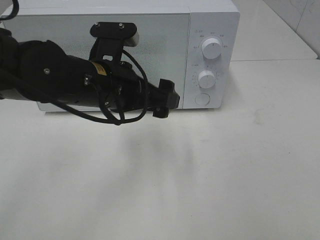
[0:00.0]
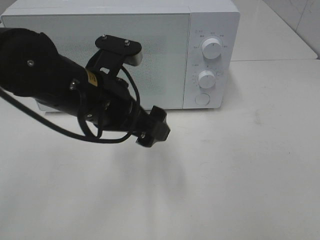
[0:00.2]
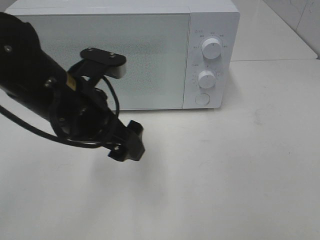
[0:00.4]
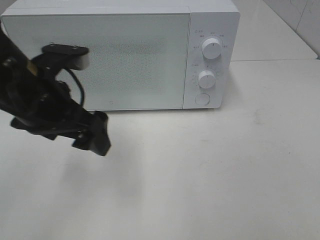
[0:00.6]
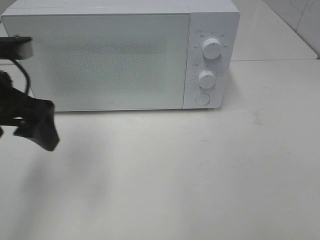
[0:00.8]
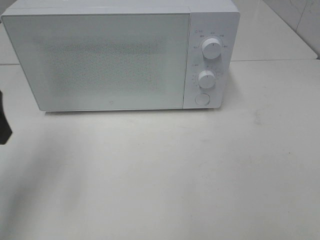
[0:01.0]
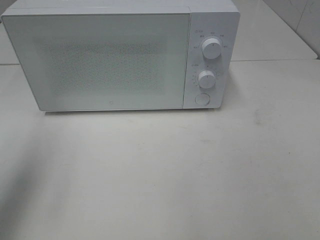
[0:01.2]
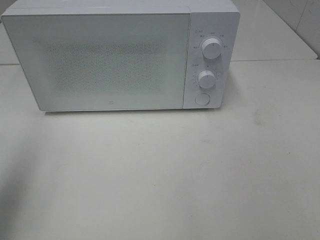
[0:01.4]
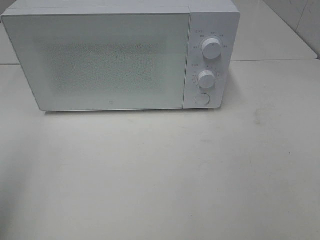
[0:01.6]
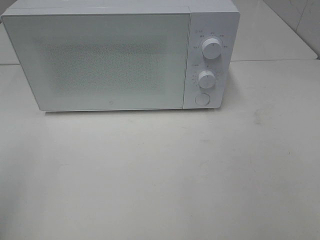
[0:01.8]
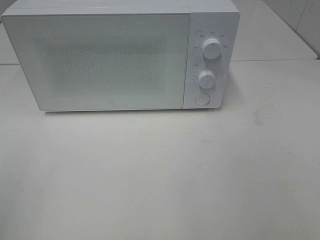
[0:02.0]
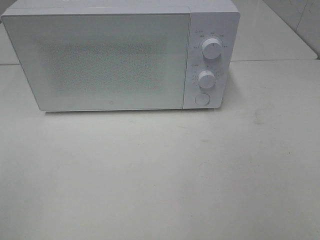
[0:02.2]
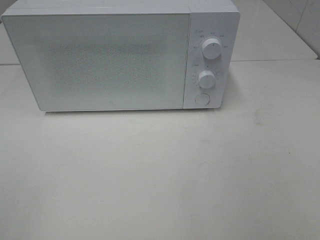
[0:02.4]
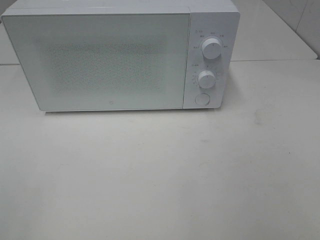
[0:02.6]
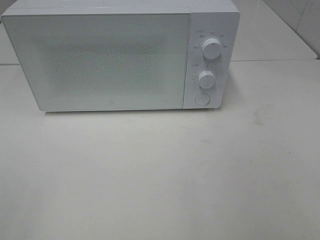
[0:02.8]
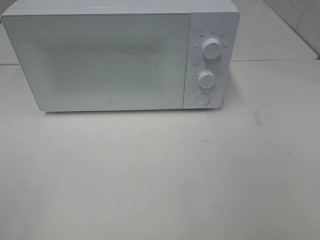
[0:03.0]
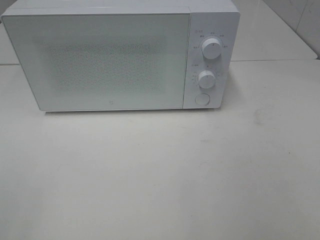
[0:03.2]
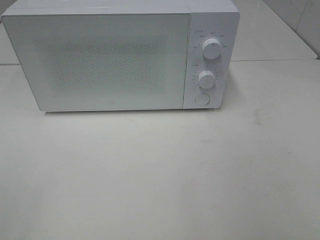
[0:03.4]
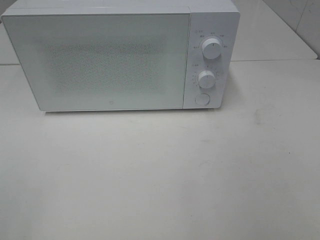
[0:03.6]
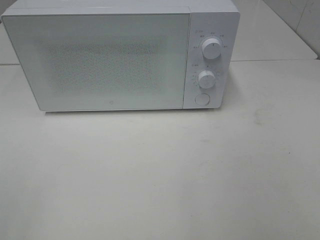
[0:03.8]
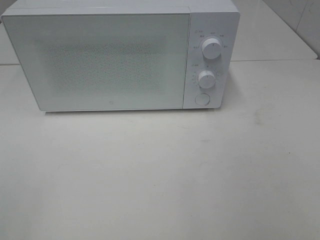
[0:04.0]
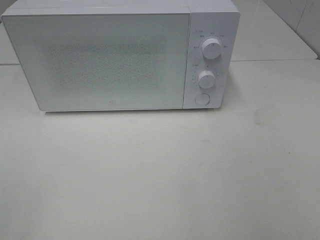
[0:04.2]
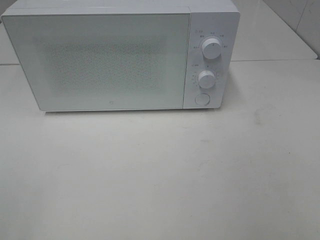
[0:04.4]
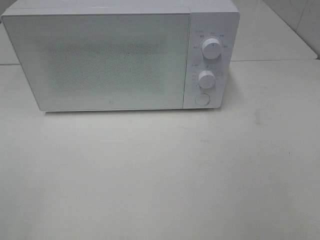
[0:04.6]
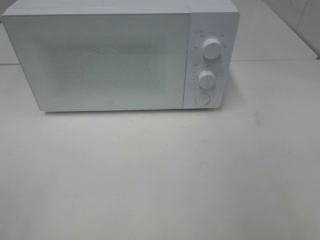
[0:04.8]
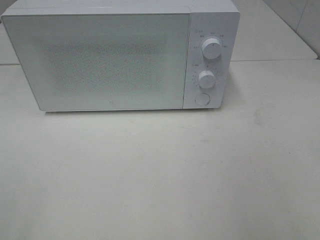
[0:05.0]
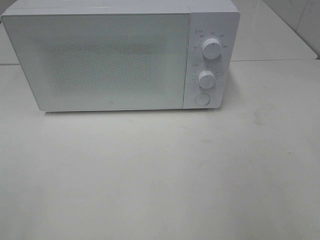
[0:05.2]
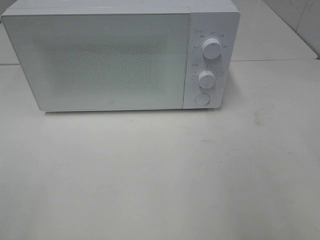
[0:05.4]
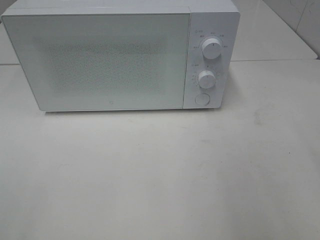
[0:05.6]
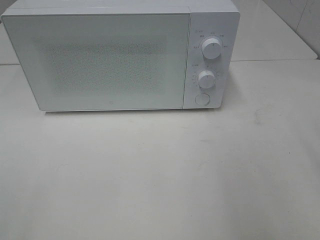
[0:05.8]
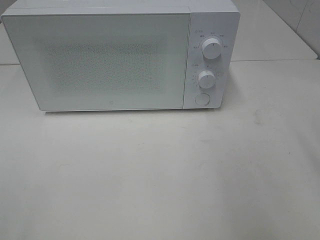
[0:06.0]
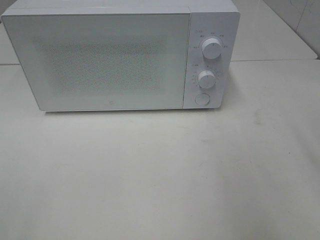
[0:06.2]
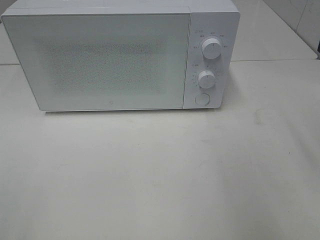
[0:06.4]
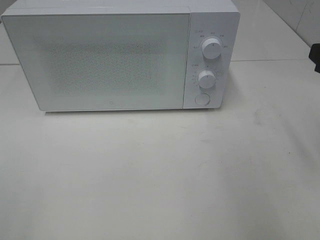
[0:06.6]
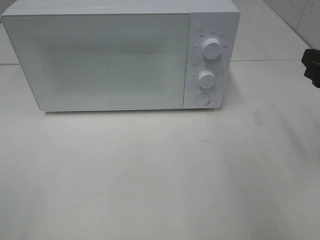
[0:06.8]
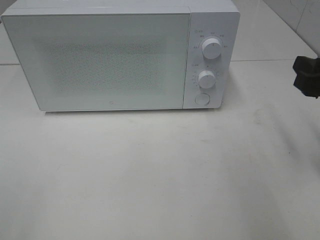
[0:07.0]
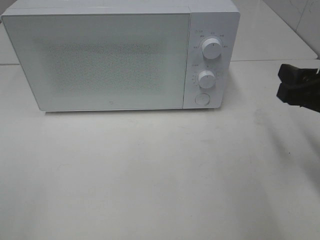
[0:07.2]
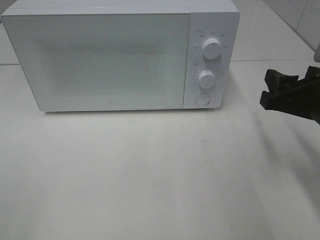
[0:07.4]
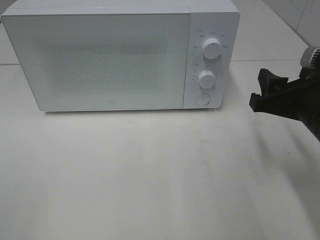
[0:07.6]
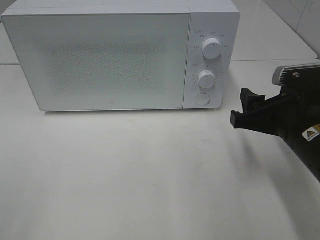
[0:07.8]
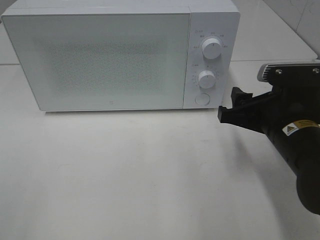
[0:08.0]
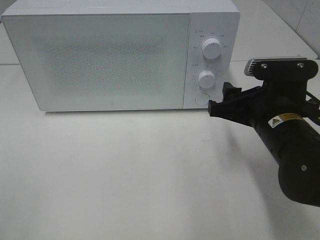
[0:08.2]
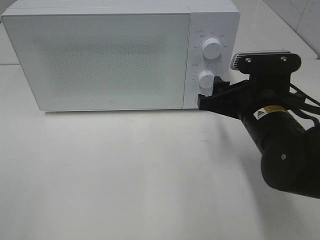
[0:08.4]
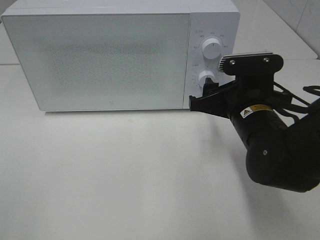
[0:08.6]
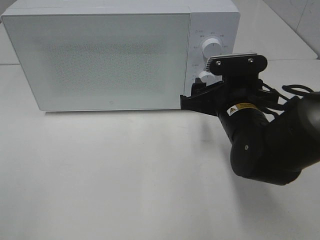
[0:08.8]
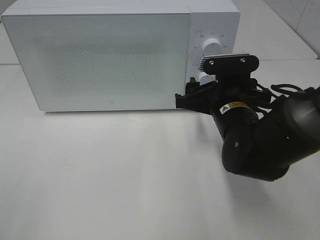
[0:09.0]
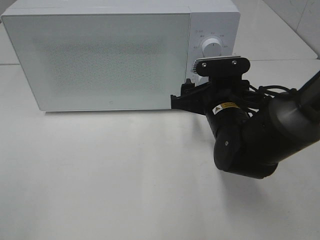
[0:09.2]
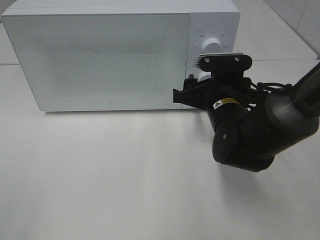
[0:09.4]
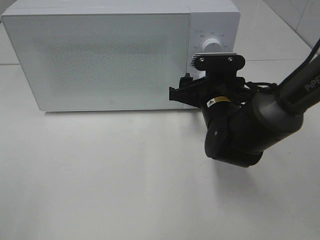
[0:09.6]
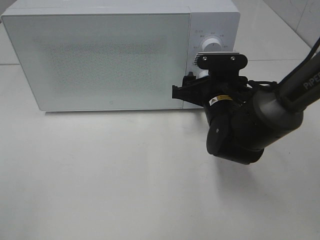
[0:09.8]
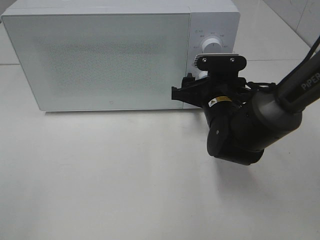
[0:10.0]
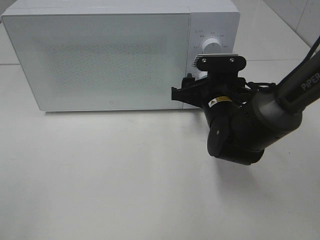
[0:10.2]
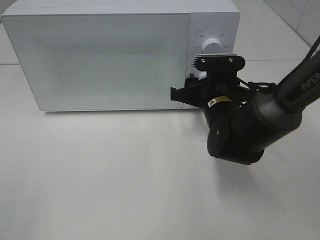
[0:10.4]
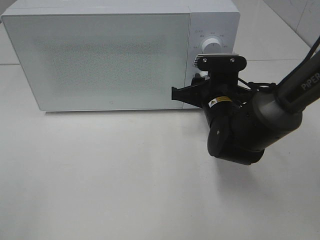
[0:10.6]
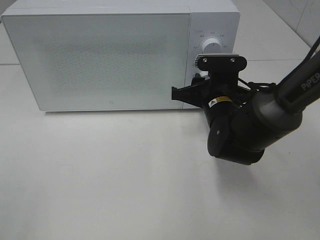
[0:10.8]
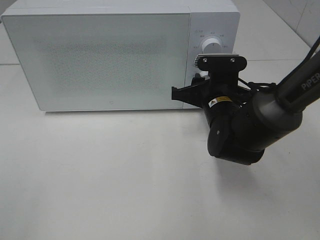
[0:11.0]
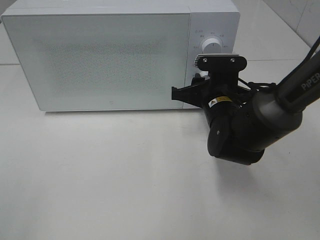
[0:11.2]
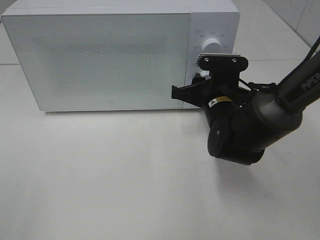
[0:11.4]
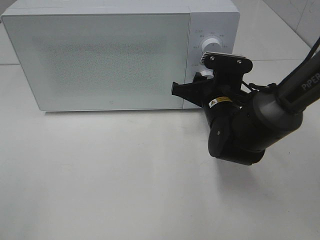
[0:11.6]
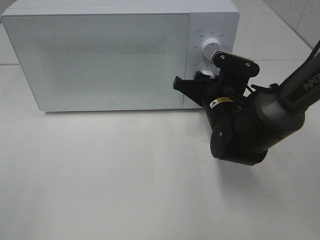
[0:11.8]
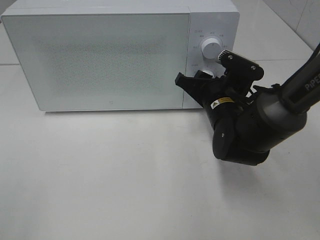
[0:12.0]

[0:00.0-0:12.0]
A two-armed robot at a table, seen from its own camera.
Task of the whole recording: Heat the burger.
0:00.0 to 0:01.6: The left gripper heads to the left, backward and upward, covering about 30 cm.
0:01.6 to 0:03.0: The left gripper heads backward, covering roughly 10 cm.
0:03.0 to 0:04.4: The two grippers keep their place.
0:06.0 to 0:07.6: The right gripper is displaced downward and to the left by roughly 15 cm.
0:07.6 to 0:09.0: The right gripper heads to the left and forward, covering some 10 cm.
0:09.0 to 0:10.4: There are only small adjustments of the grippers.

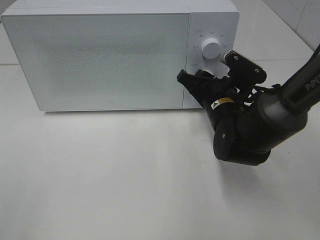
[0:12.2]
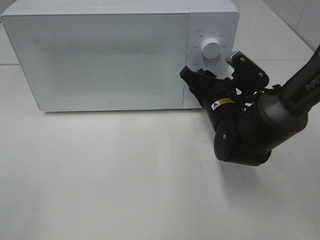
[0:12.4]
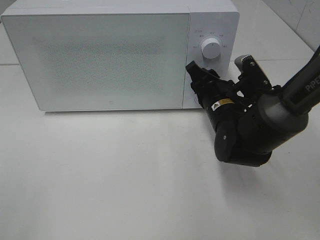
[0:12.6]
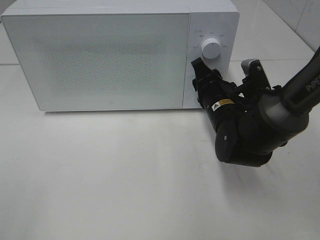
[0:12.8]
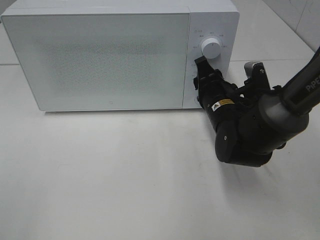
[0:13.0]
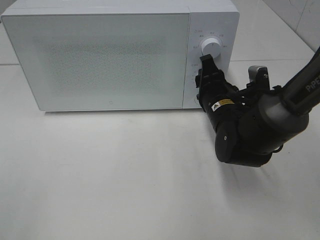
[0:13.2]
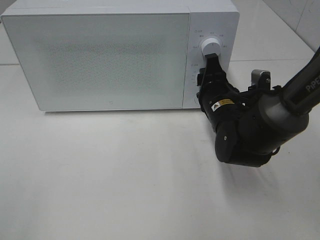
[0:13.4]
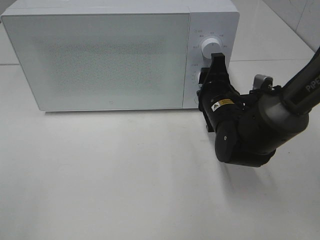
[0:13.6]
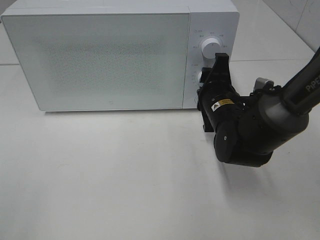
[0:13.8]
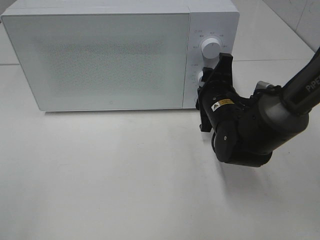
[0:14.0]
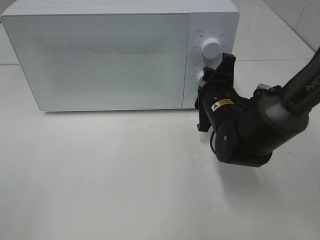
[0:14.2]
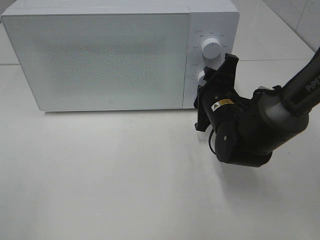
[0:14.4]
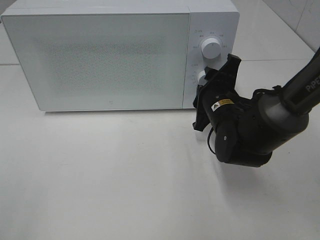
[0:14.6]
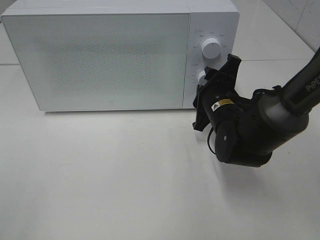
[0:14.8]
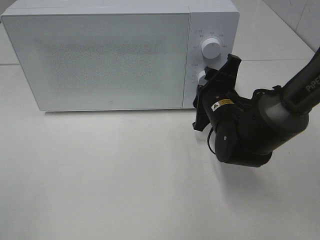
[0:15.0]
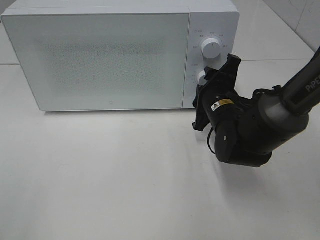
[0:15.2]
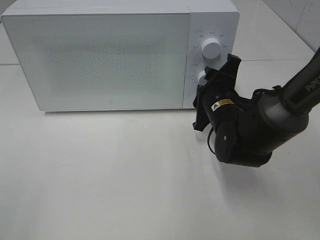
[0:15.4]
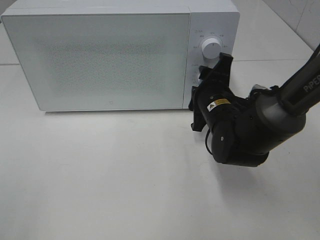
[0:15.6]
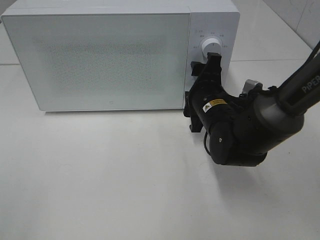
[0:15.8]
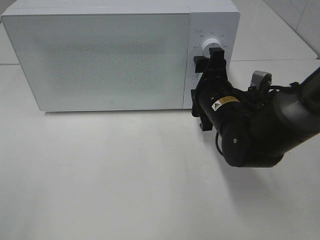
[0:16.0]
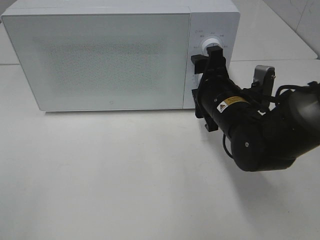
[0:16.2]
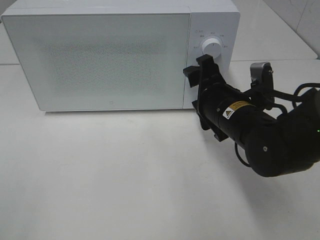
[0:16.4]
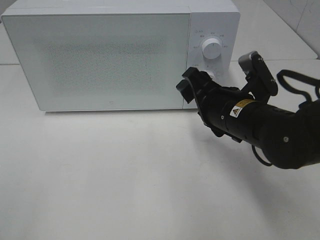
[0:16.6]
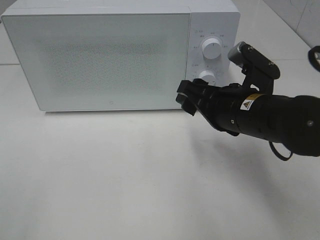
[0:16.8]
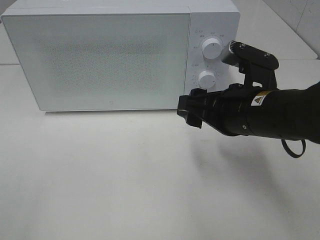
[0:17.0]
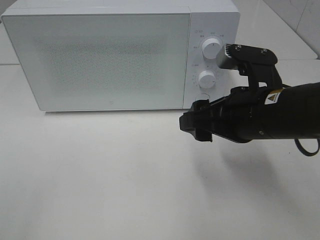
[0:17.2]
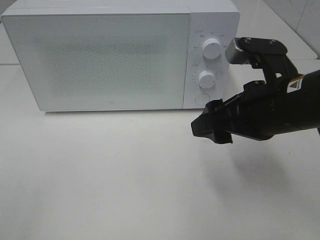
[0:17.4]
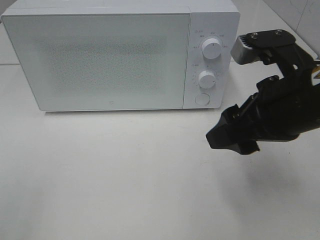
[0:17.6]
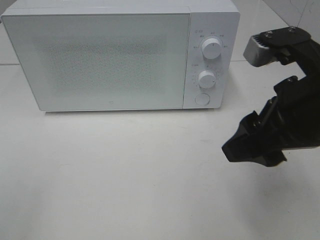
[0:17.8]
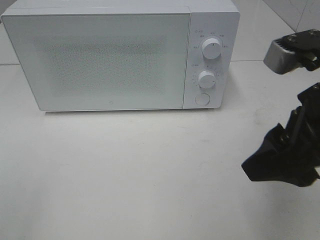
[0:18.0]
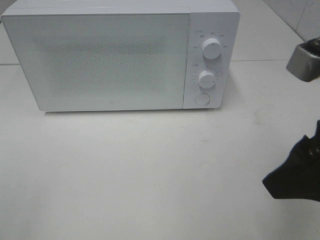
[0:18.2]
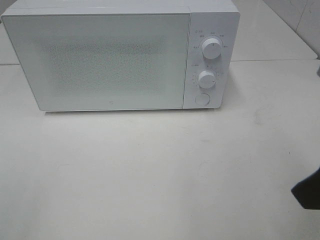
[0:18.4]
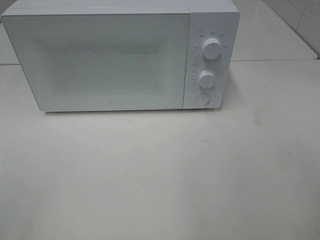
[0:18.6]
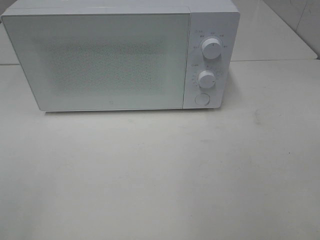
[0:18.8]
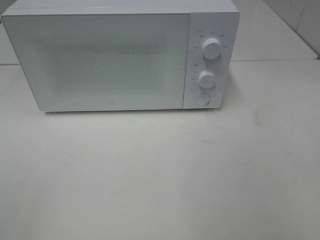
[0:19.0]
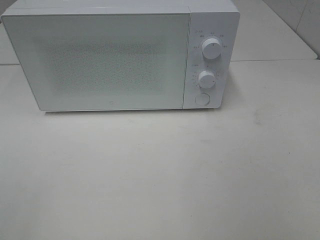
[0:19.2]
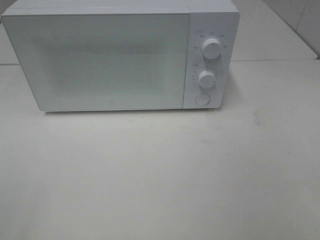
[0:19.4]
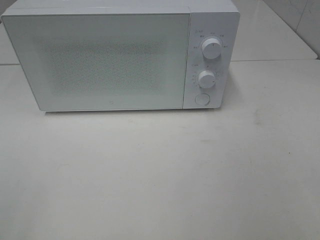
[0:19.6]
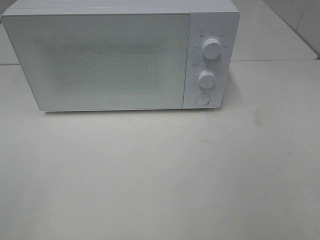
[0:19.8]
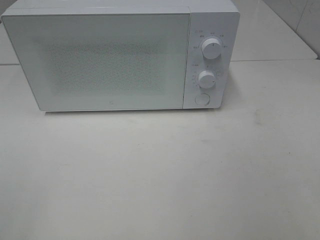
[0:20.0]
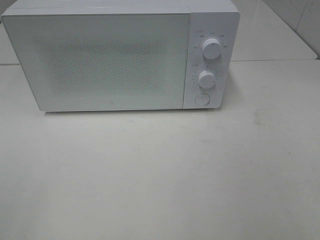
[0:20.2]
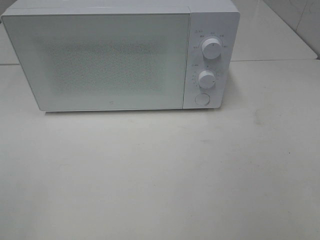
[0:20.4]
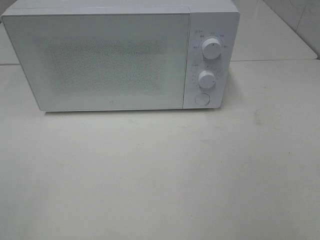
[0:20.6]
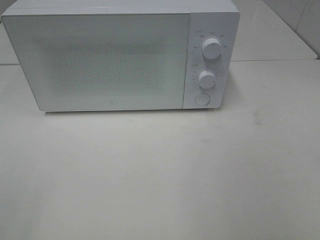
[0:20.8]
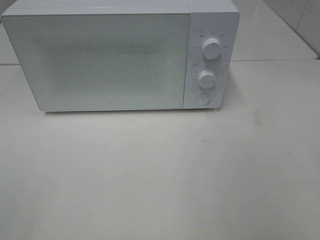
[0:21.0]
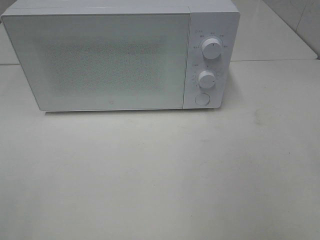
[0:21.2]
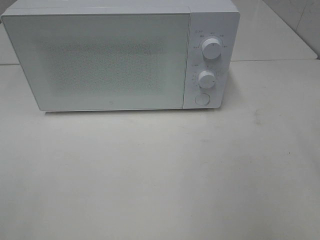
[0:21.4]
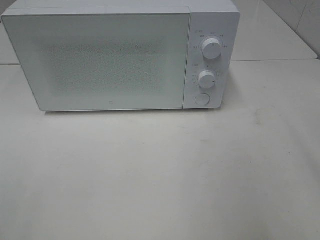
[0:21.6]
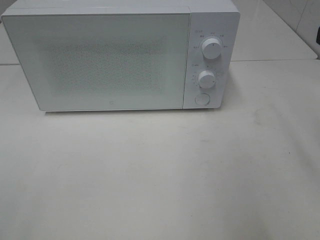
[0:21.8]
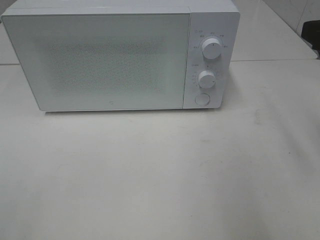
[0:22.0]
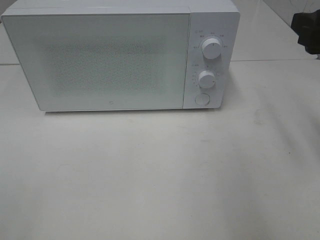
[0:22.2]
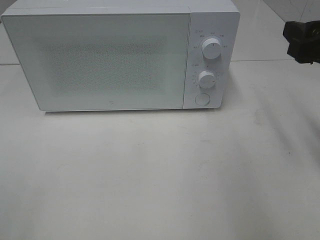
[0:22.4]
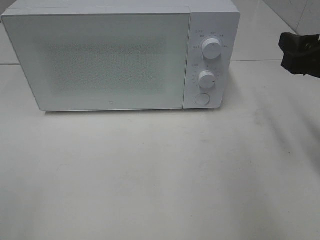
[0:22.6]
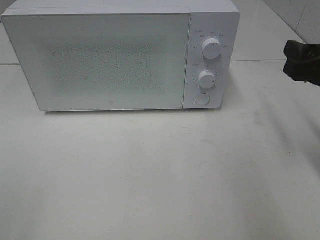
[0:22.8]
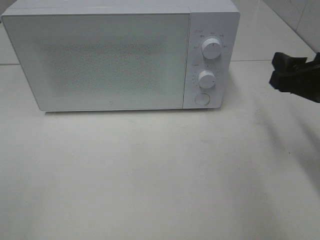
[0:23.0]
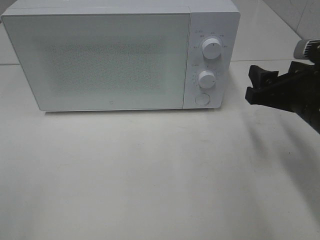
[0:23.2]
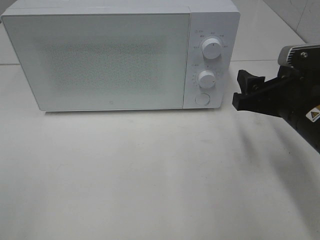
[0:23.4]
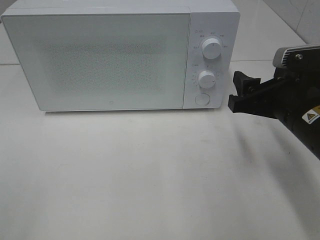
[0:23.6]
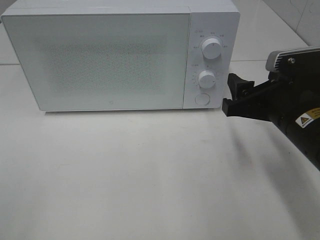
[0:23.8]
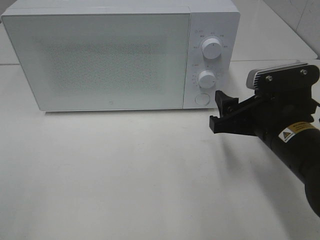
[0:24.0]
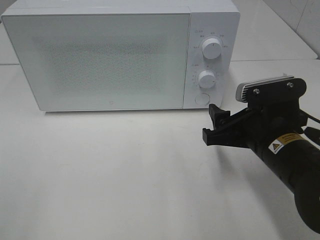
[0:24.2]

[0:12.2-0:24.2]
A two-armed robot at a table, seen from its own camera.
Task of the whole recording: Heat the burger.
Step, 0:12.2 to 0:16.0: Right hand: twist timer button.
0:13.8 to 0:15.2: The grippers make only small movements.
0:15.2 to 0:16.6: The right gripper is displaced backward by roughly 5 cm.
0:16.6 to 0:18.2: The right gripper travels backward, upward and to the right by roughly 20 cm.
0:18.2 to 0:19.8: The right gripper is displaced backward and to the right by some 15 cm.
0:21.2 to 0:22.6: The right gripper goes approximately 15 cm forward and downward.
0:22.6 to 0:24.2: The right gripper travels downward and to the left by roughly 15 cm.
